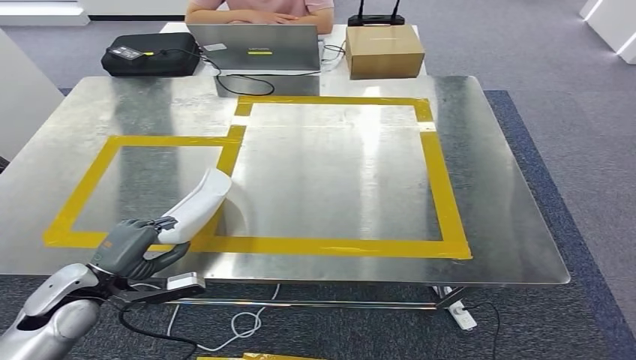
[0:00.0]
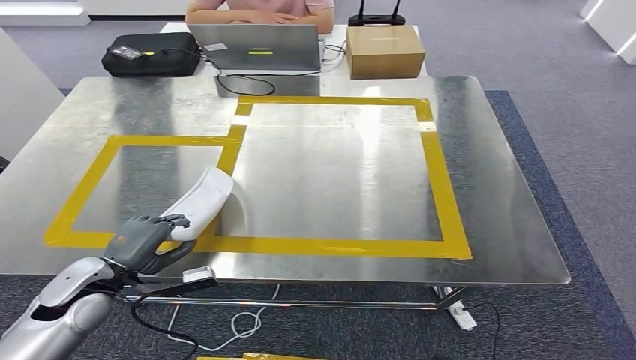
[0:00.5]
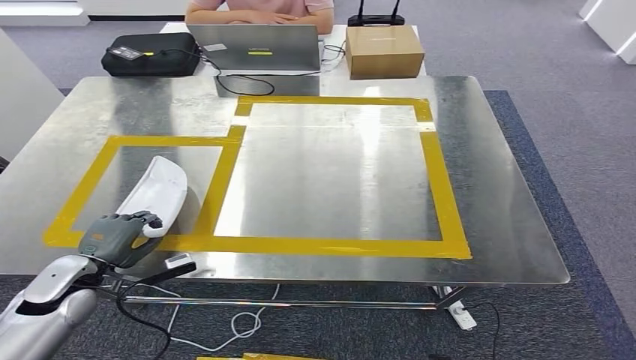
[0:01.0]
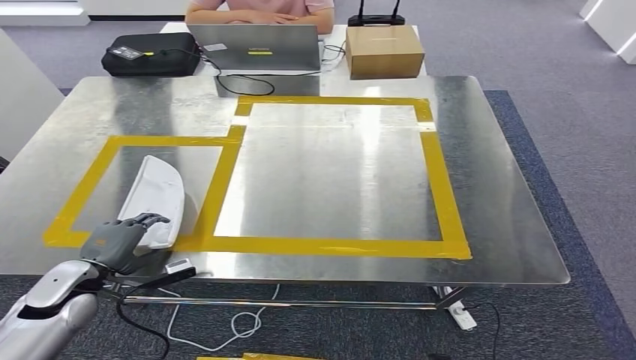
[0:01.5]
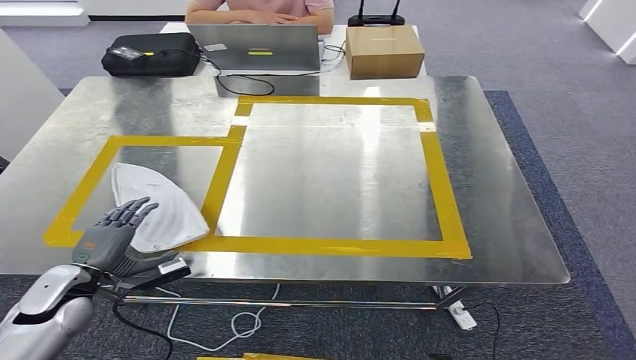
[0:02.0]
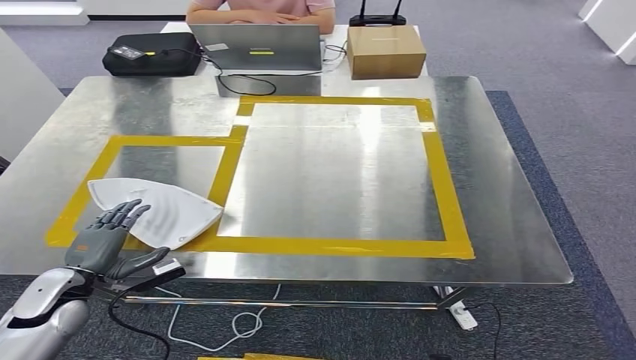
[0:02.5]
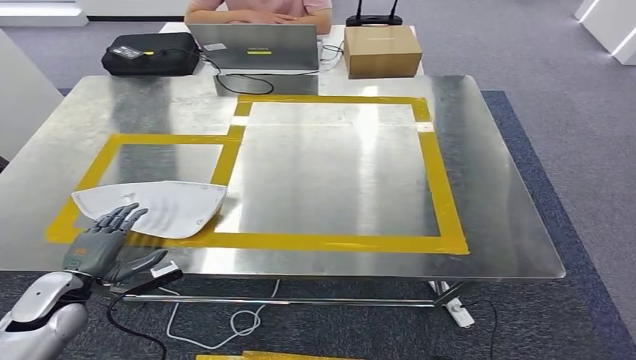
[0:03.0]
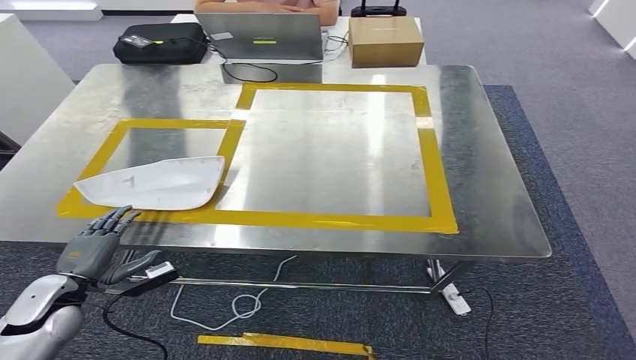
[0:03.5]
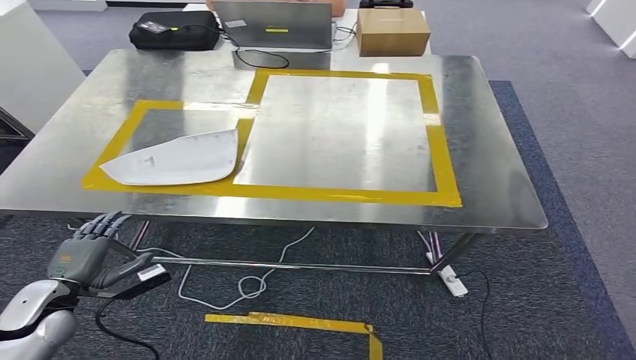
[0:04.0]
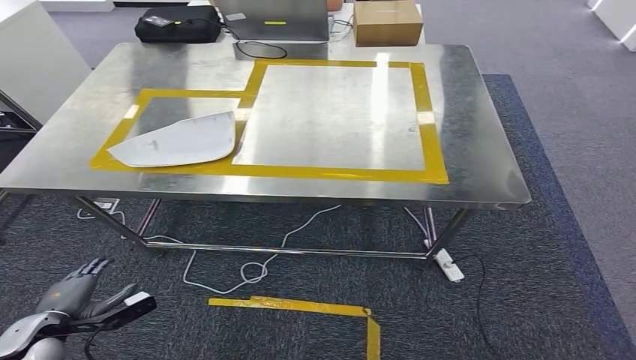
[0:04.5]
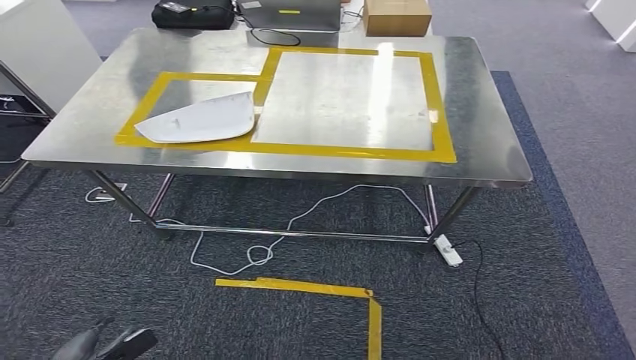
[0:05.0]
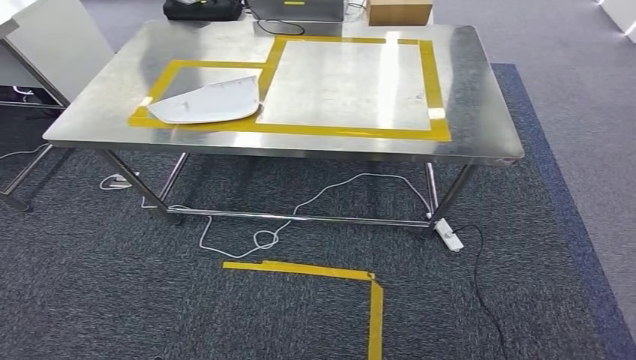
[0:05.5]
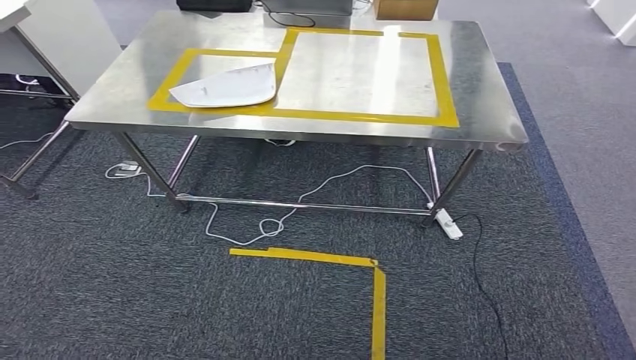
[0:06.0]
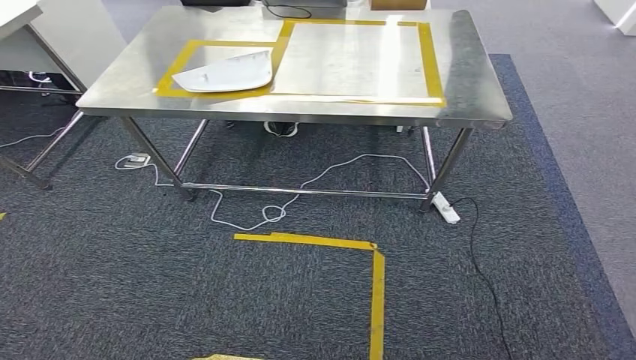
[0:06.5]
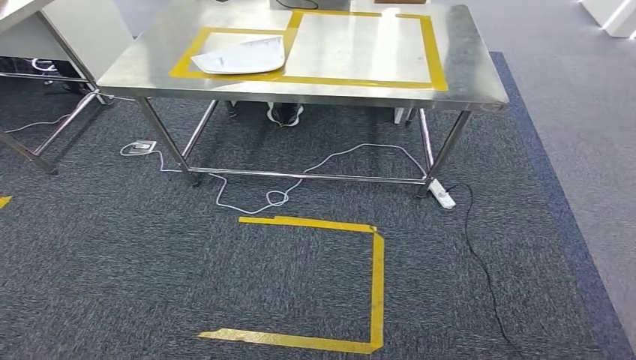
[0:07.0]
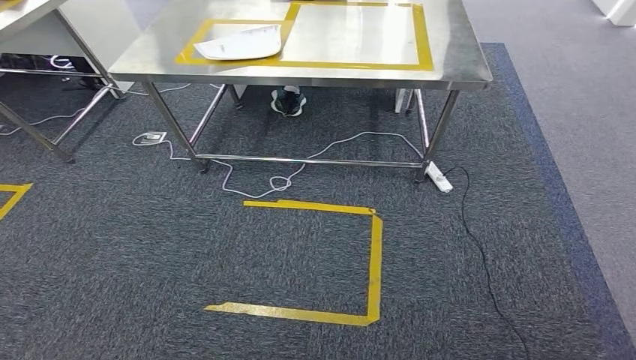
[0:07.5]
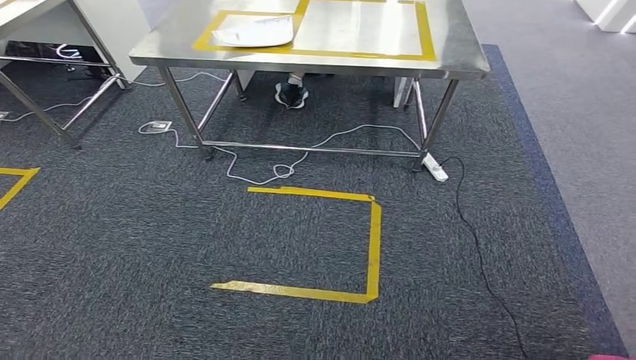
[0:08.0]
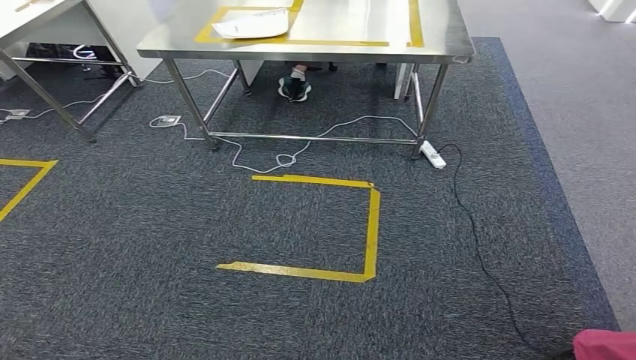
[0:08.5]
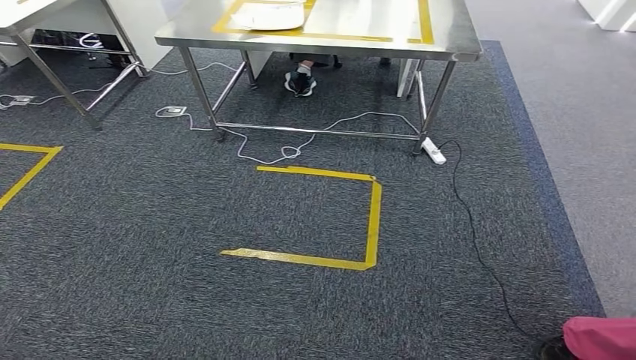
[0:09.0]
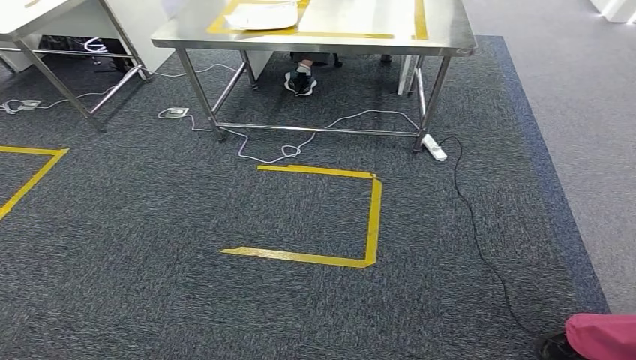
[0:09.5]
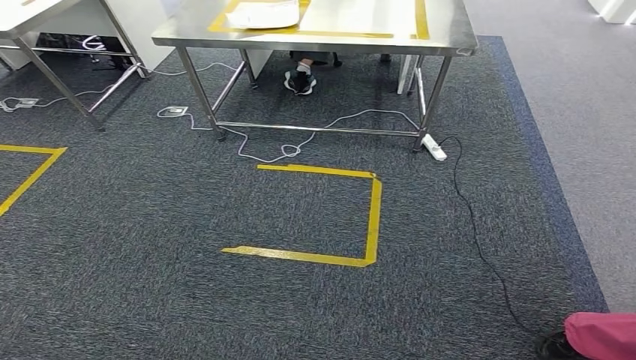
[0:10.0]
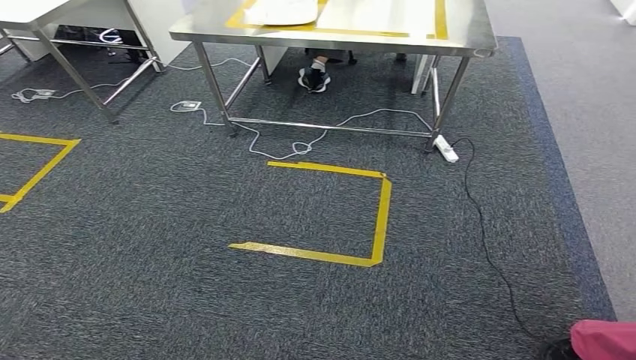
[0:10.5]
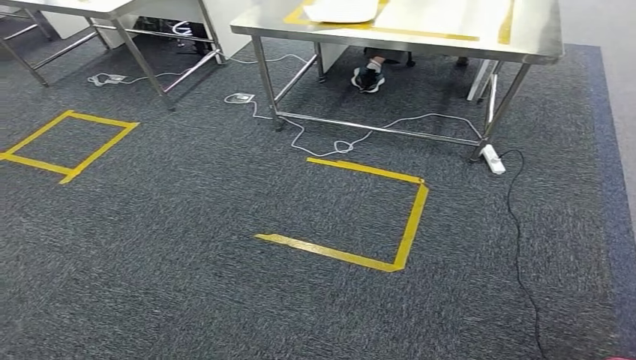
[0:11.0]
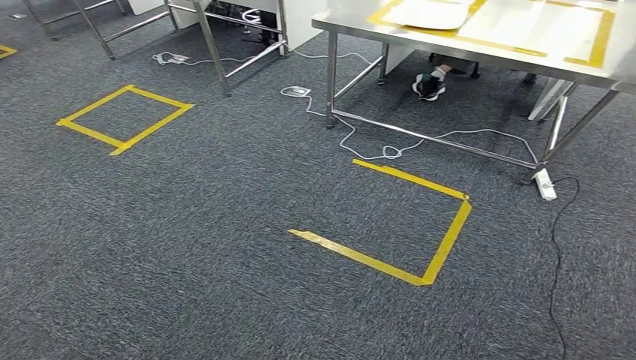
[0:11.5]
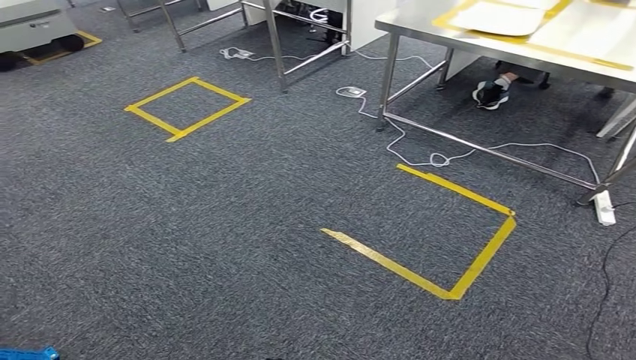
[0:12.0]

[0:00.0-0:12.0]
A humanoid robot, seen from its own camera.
Step, 0:00.0 to 0:08.0: Insert the small component into the corresponding slot on the workbench.
0:00.0 to 0:02.0: The left hand shifts by some 5 cm.
0:08.0 to 0:10.0: The two hands keep their place.

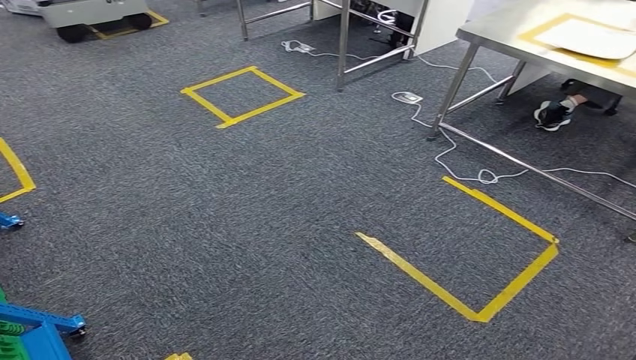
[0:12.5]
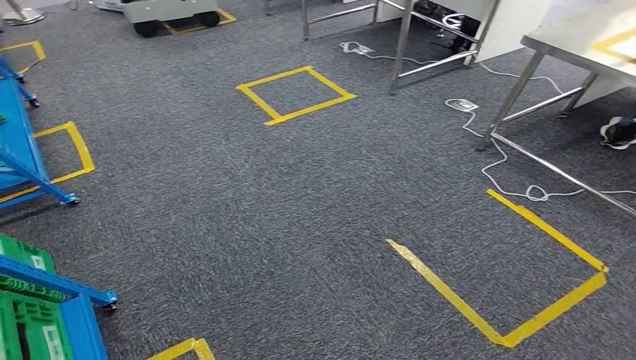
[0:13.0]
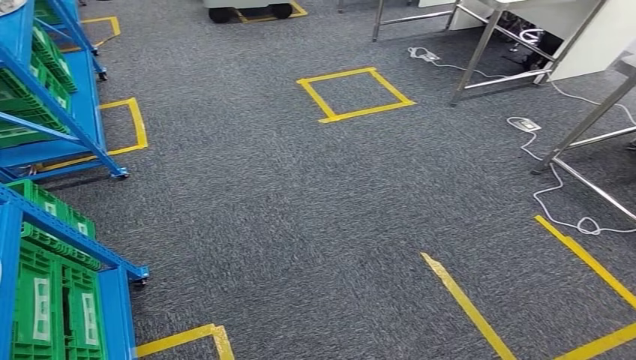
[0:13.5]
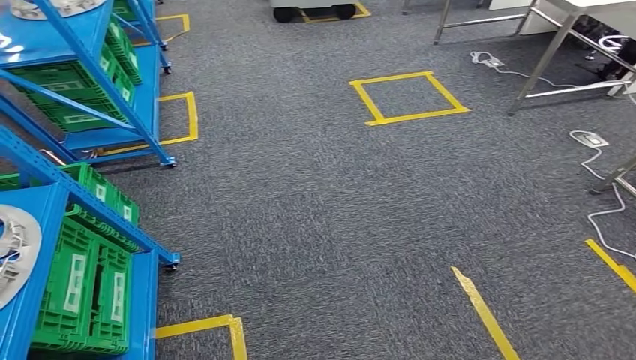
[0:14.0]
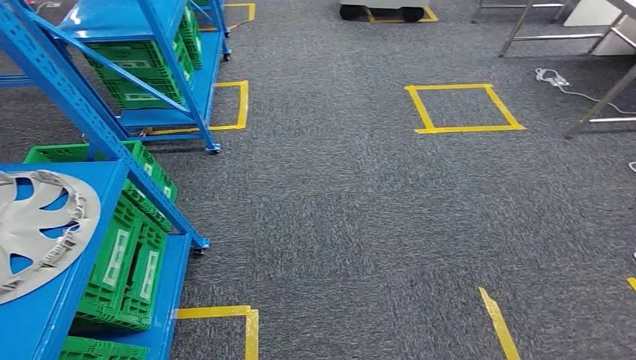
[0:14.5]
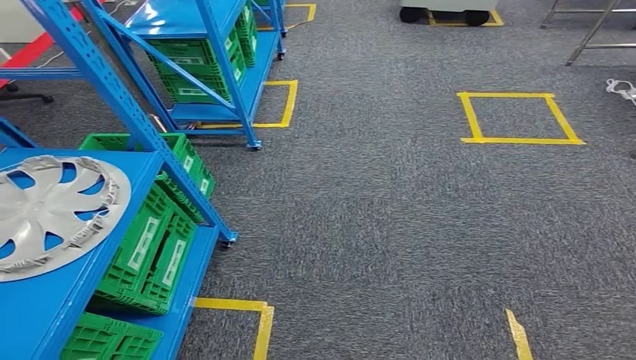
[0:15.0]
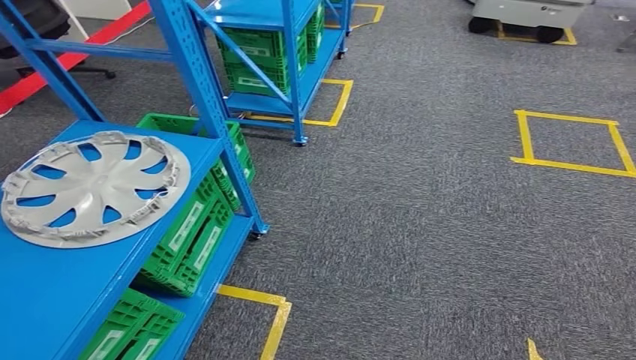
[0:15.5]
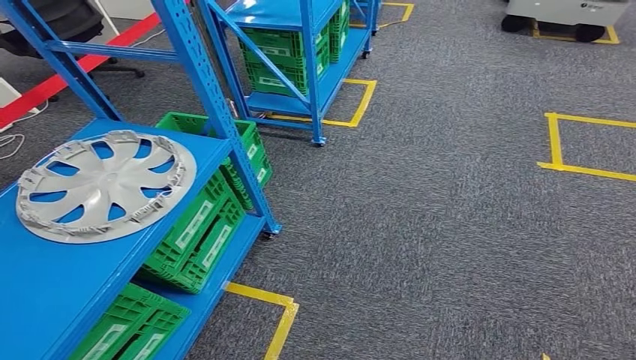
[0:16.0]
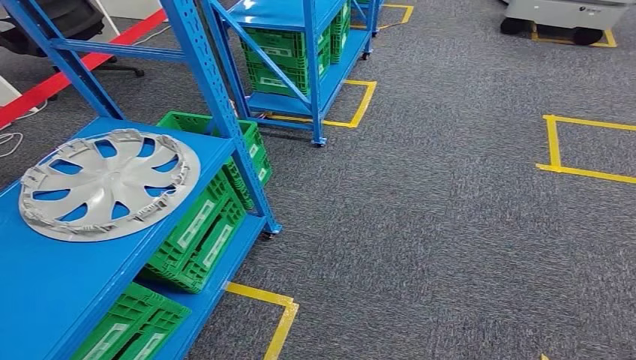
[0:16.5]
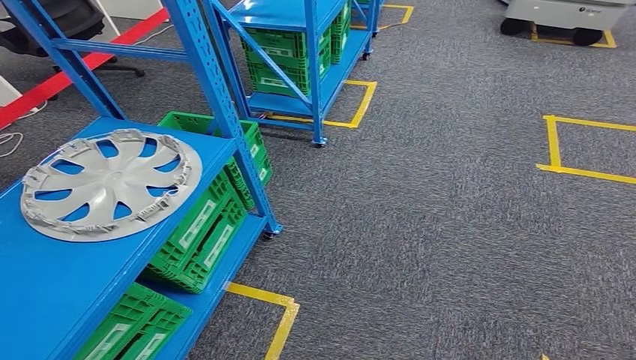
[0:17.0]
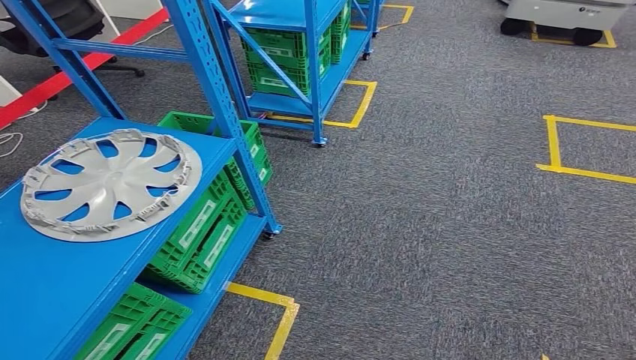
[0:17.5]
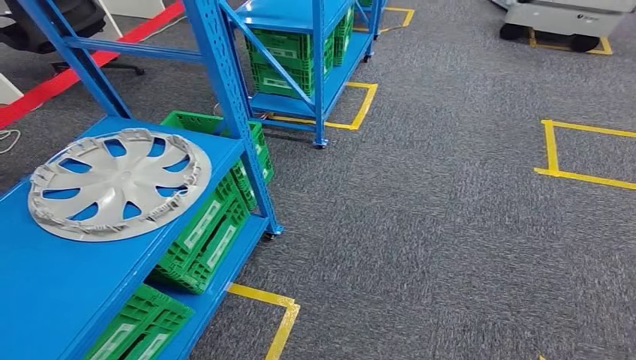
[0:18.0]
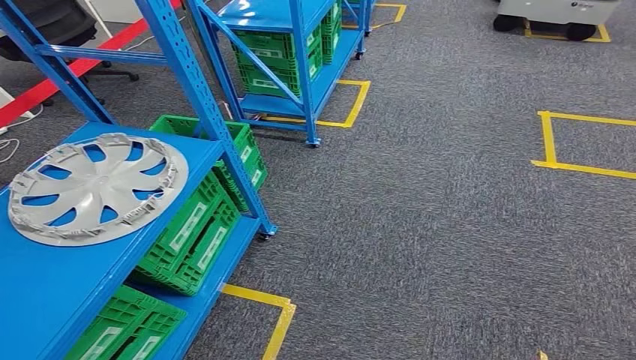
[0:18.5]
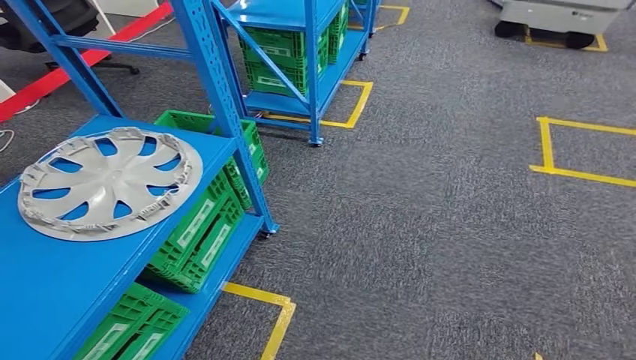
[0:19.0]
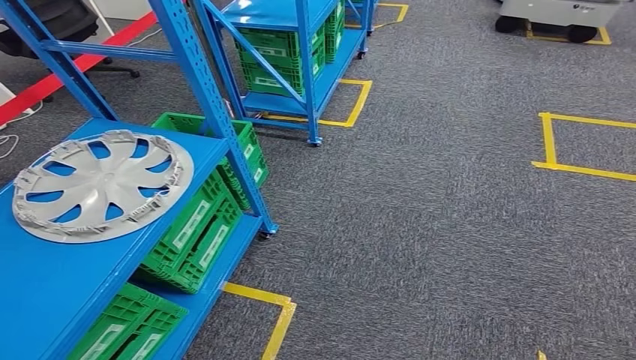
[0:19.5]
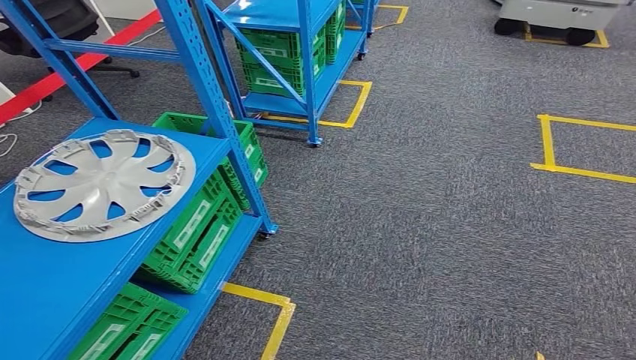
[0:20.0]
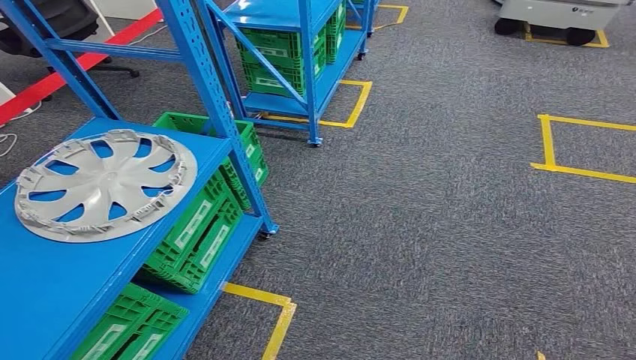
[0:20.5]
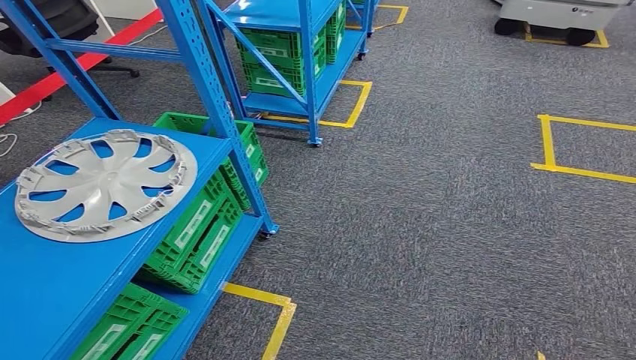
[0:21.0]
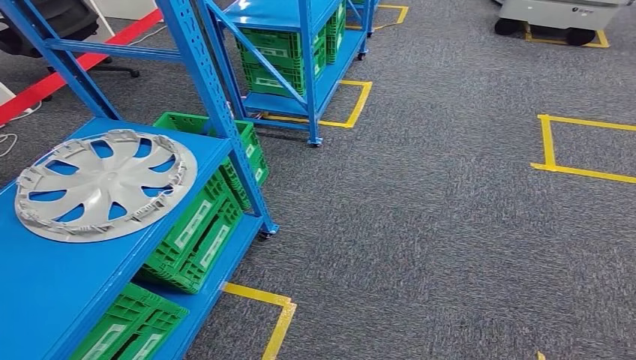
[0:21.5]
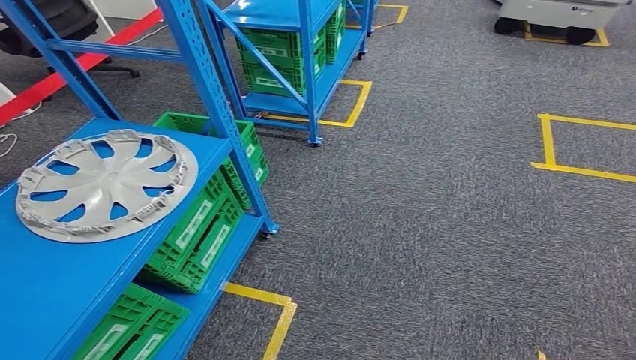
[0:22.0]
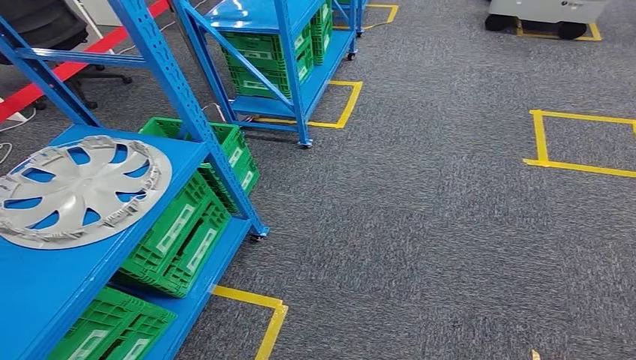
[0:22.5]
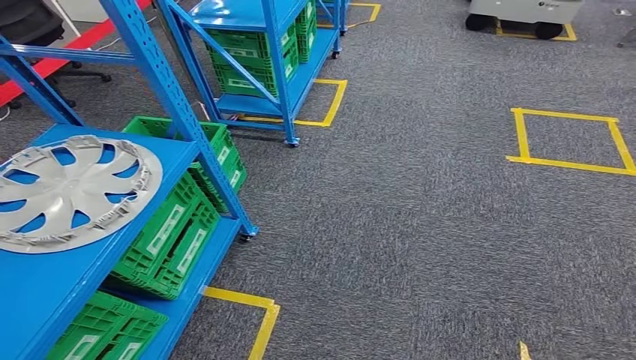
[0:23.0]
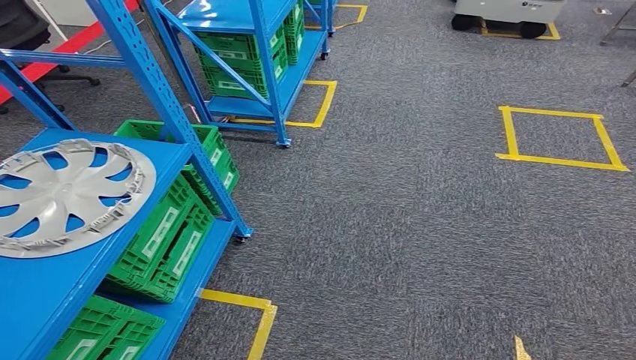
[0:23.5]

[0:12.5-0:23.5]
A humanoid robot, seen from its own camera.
0:16.0 to 0:18.0: There are only small adjustments of the hands.
0:18.0 to 0:21.5: Both hands stay about where they are.
